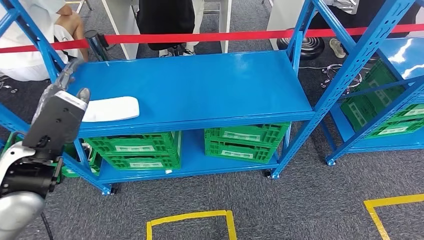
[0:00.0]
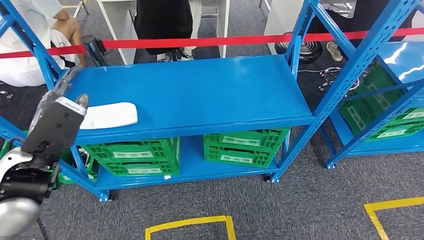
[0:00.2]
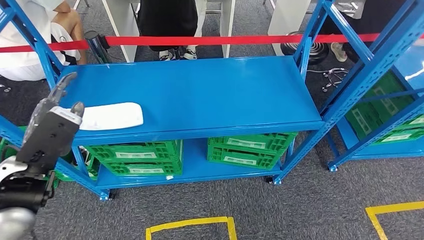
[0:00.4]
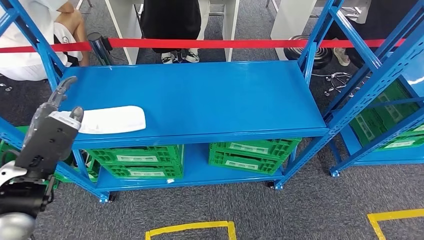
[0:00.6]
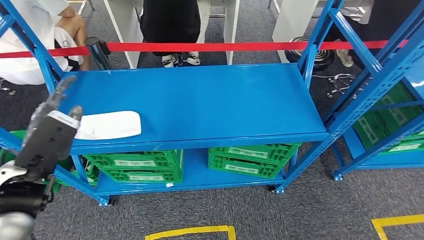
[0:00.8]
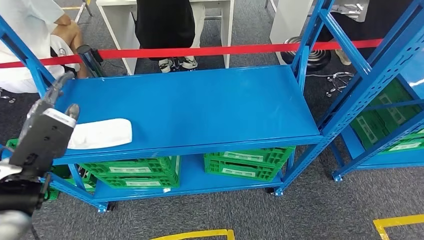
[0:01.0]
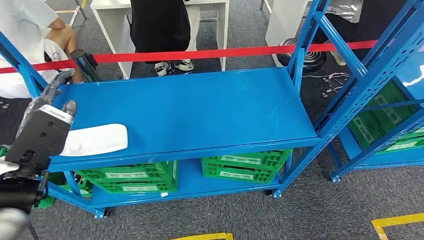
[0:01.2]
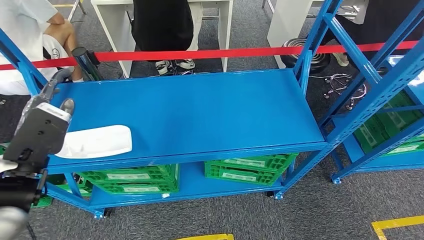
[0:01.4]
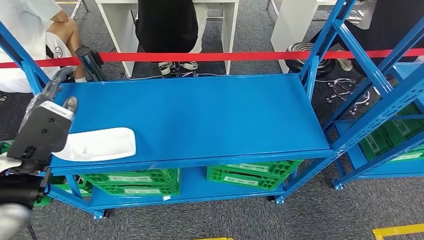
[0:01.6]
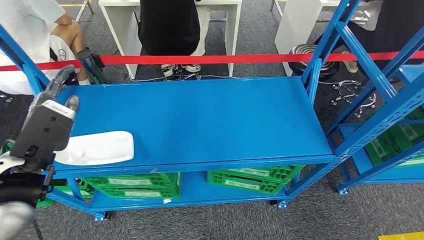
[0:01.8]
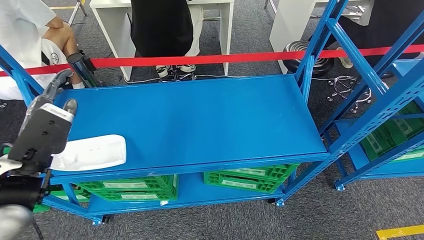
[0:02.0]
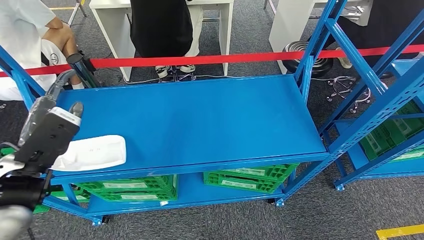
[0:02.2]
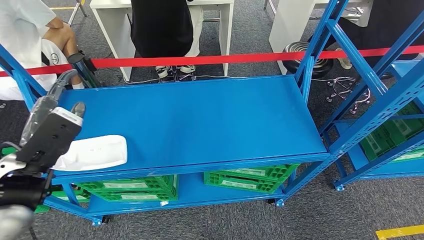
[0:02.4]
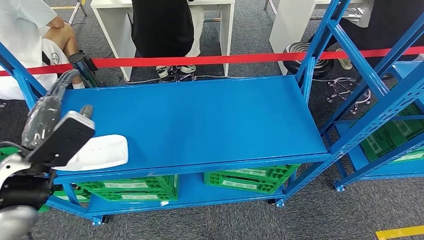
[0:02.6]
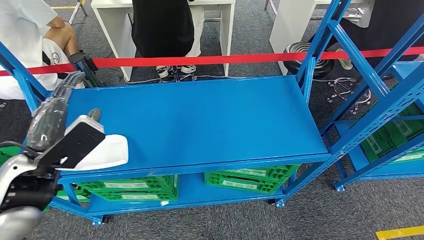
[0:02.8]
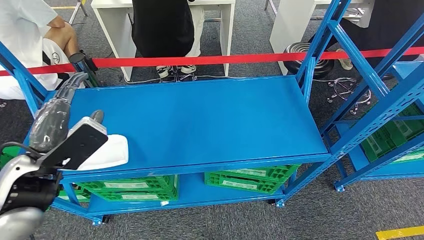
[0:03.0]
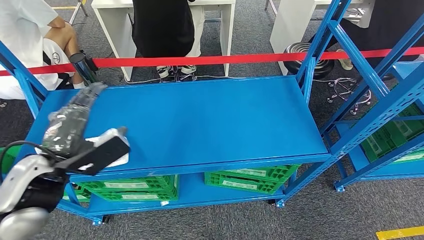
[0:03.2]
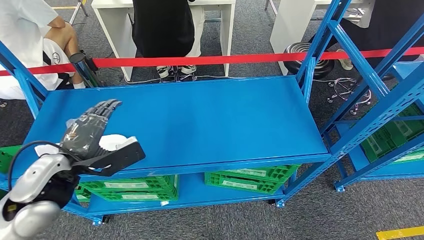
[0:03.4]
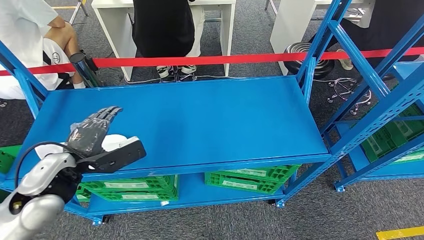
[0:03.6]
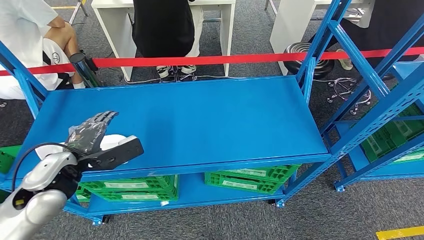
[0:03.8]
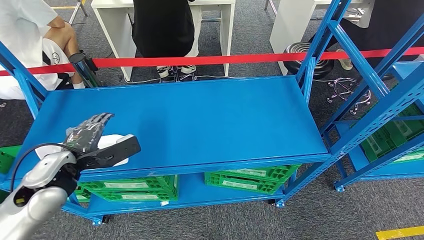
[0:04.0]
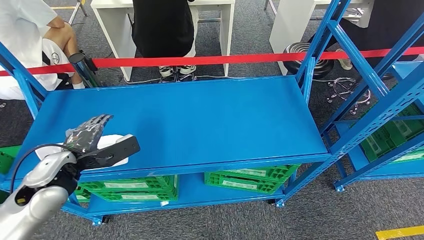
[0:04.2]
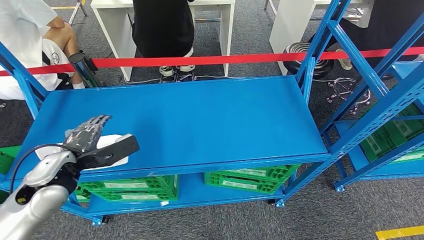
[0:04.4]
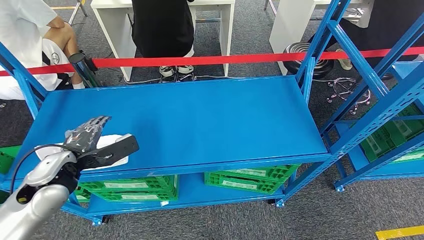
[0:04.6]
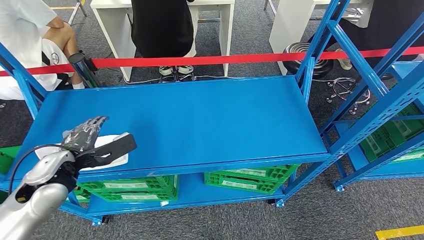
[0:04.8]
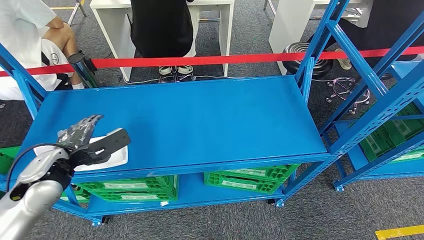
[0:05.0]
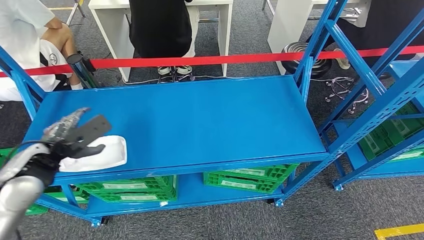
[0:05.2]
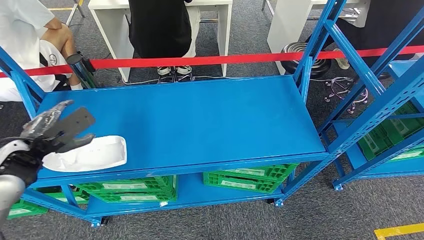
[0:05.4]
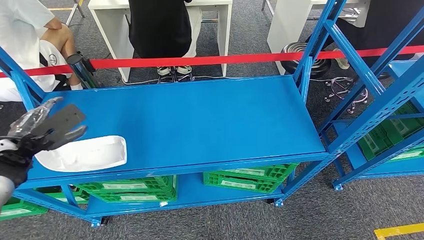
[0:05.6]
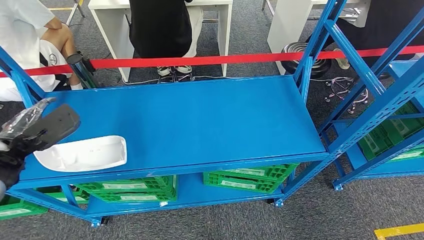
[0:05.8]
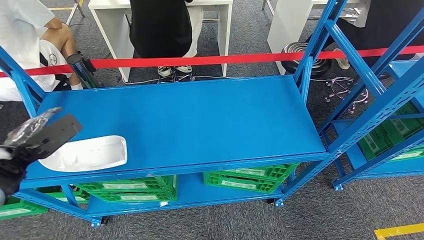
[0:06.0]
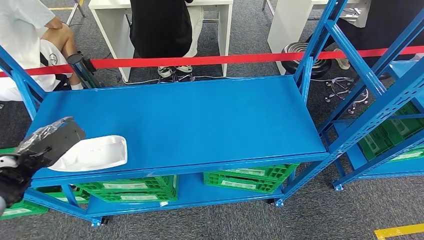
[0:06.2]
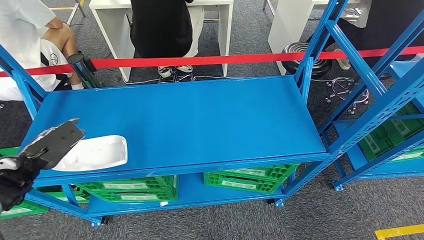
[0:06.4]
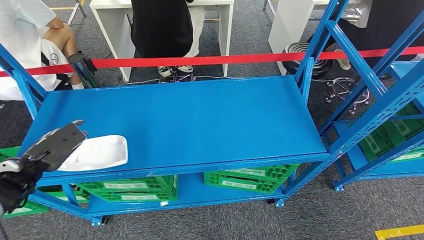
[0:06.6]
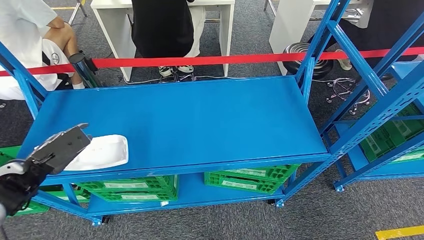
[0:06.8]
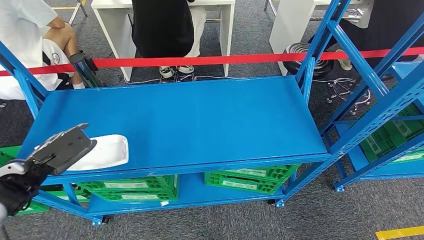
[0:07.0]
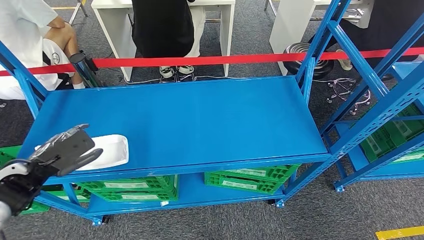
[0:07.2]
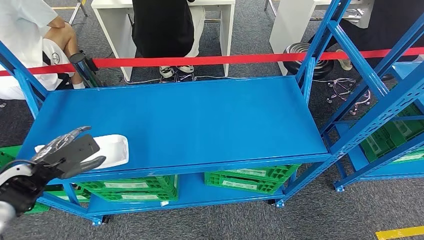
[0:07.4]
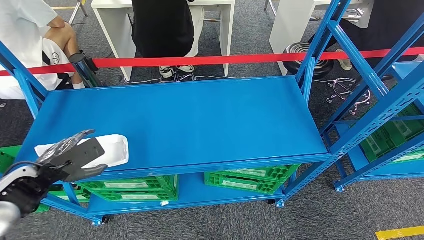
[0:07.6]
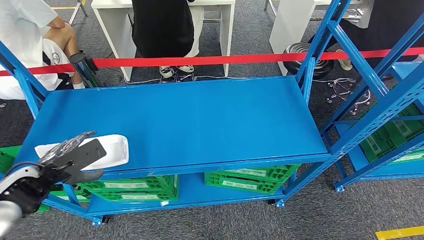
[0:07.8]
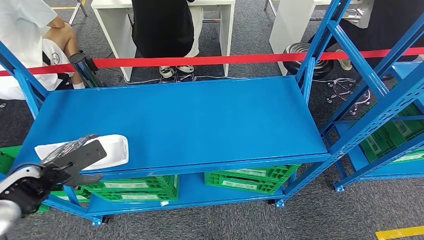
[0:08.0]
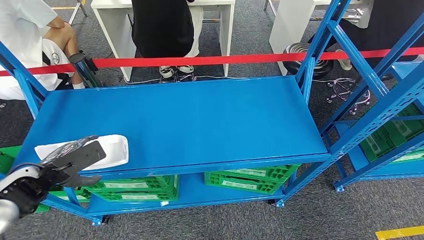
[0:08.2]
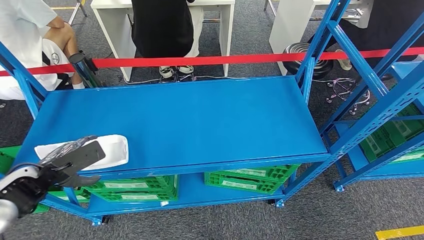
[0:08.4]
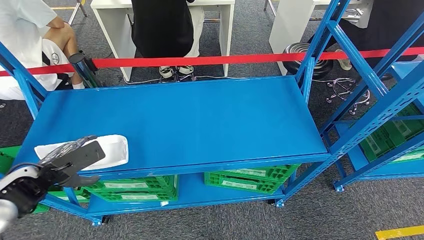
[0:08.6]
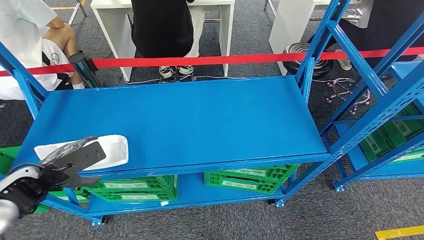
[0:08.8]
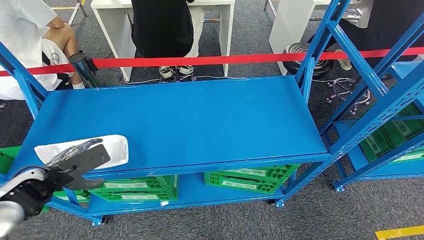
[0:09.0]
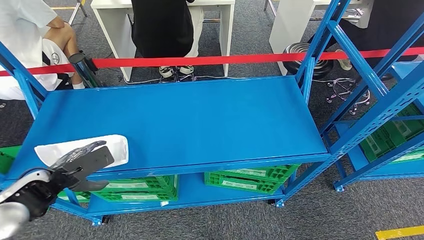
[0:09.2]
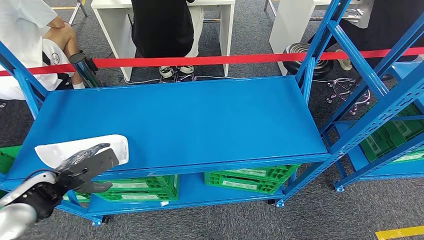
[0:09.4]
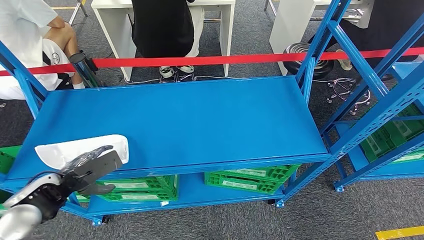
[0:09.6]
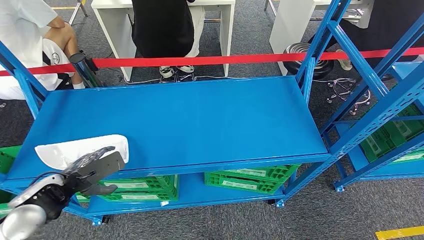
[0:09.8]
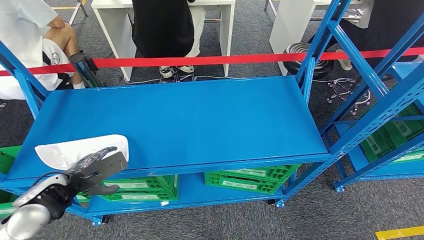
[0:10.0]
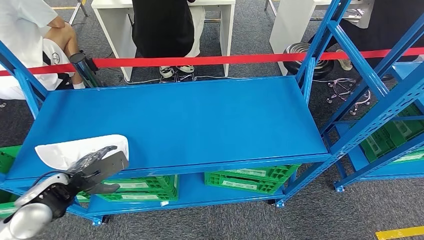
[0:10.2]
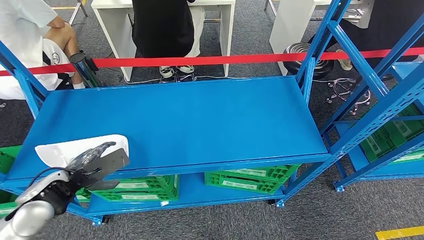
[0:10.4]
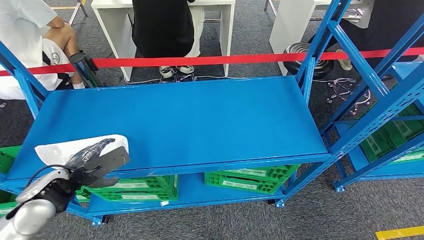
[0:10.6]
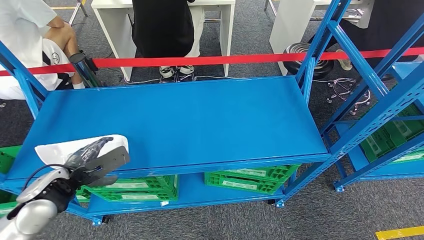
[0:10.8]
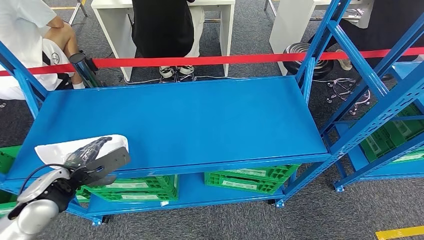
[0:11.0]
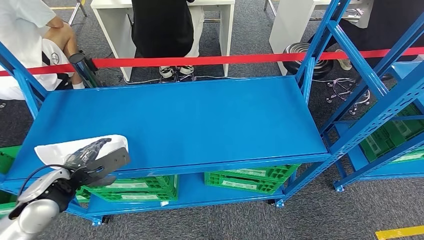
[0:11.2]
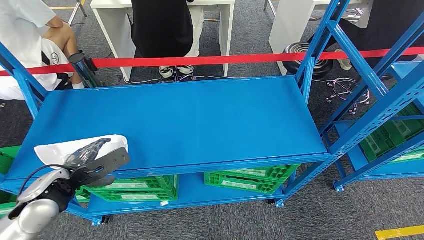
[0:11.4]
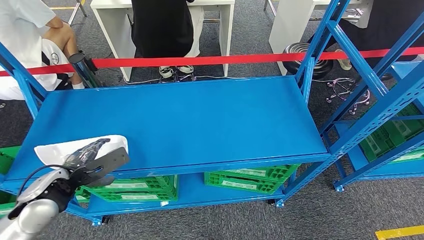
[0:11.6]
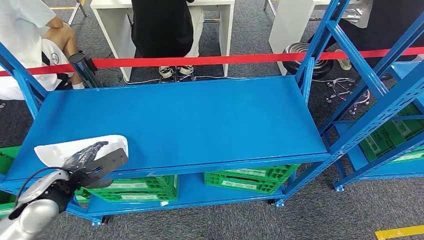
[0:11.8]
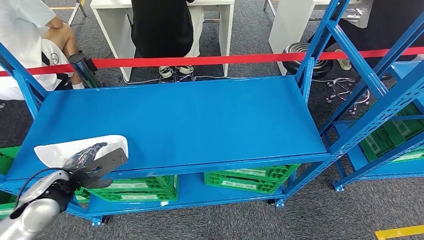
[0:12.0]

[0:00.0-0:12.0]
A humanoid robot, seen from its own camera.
0:03.0 to 0:04.4: The left hand shifts about 10 cm downward.
0:04.4 to 0:06.0: The left hand heads to the left, covering some 10 cm.
0:06.0 to 0:09.0: The hands make only small movements.
0:09.0 to 0:12.0: The hands move only a little.

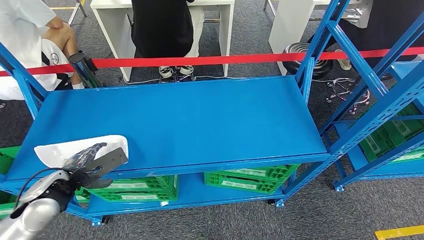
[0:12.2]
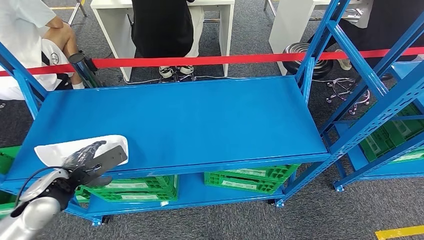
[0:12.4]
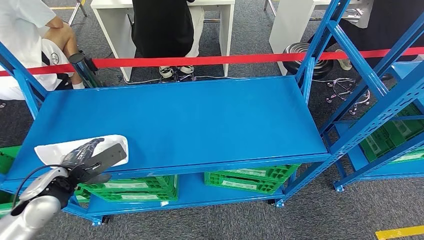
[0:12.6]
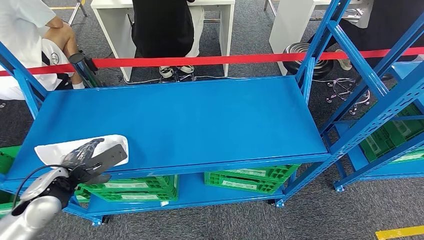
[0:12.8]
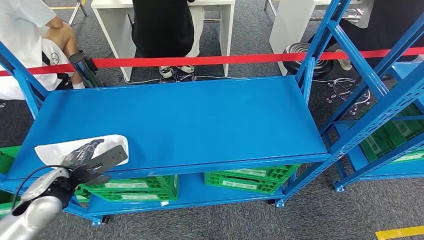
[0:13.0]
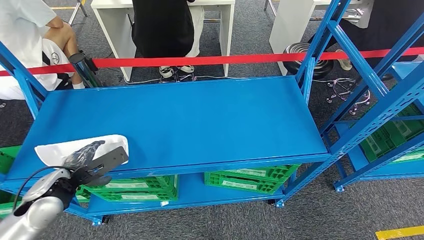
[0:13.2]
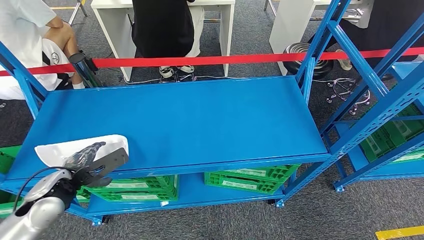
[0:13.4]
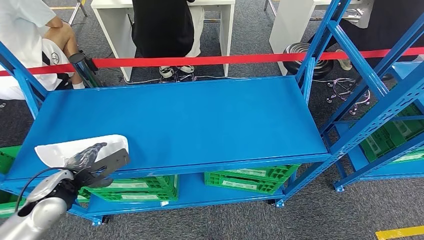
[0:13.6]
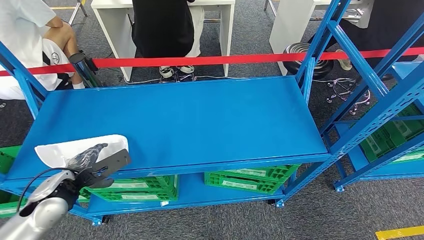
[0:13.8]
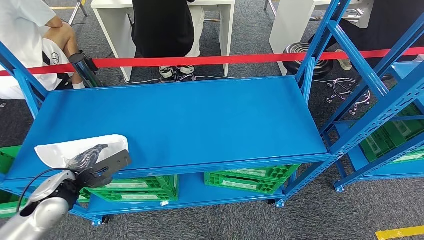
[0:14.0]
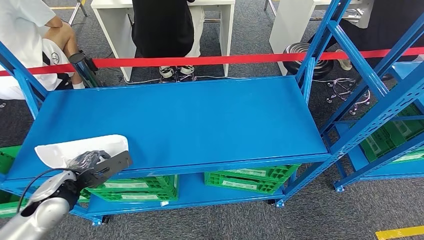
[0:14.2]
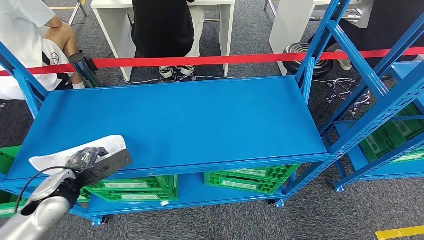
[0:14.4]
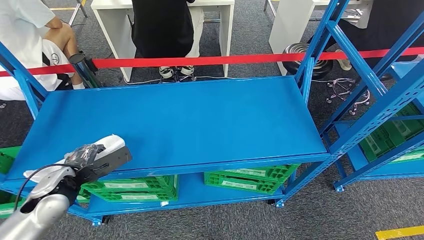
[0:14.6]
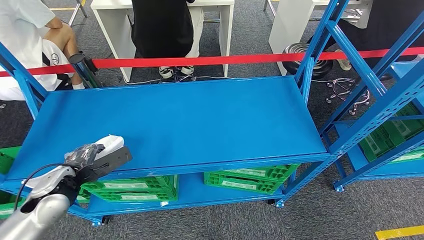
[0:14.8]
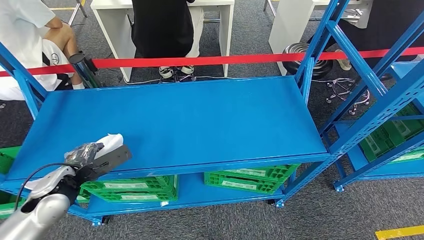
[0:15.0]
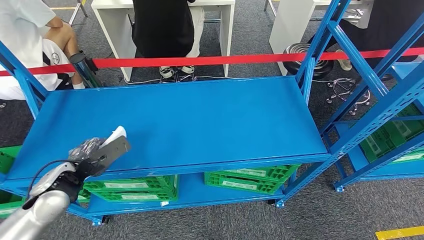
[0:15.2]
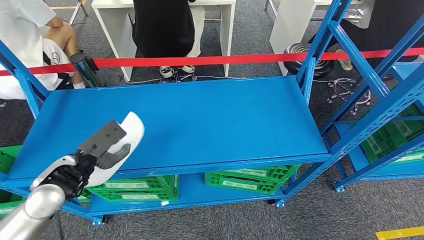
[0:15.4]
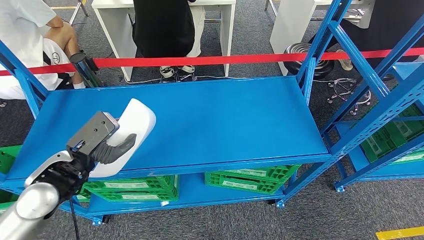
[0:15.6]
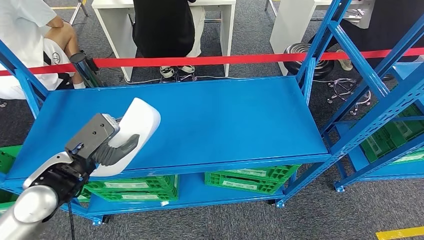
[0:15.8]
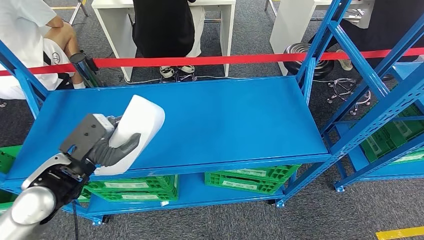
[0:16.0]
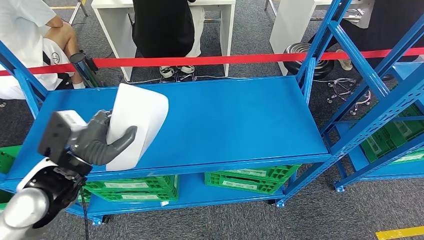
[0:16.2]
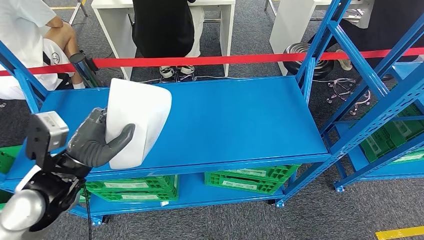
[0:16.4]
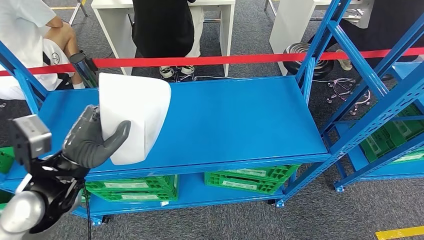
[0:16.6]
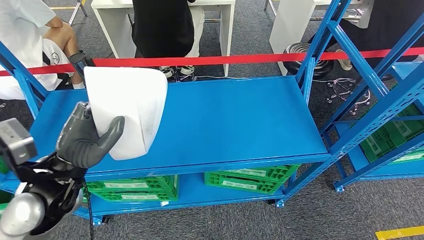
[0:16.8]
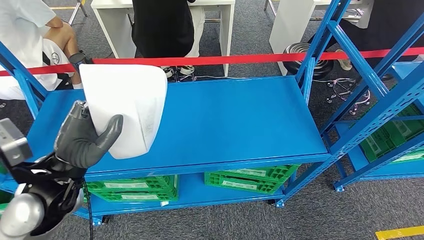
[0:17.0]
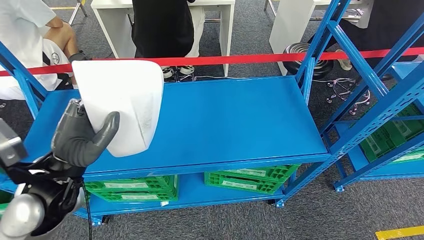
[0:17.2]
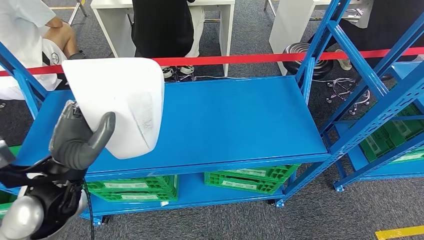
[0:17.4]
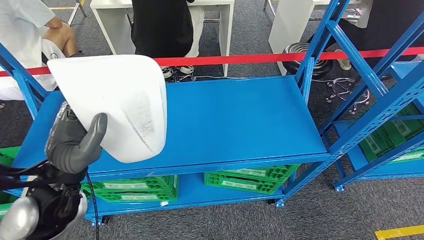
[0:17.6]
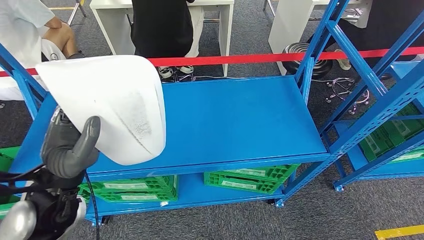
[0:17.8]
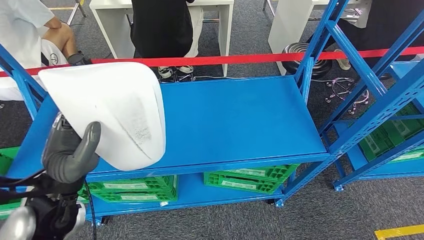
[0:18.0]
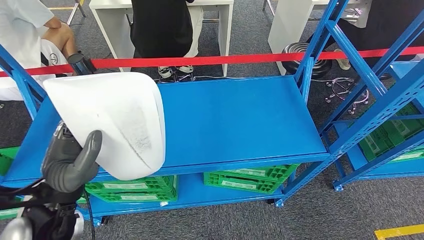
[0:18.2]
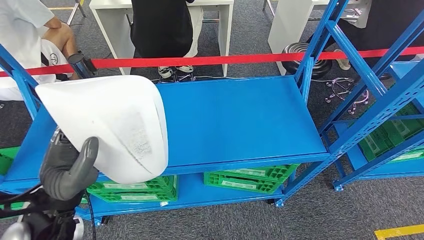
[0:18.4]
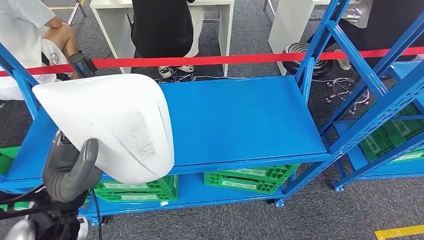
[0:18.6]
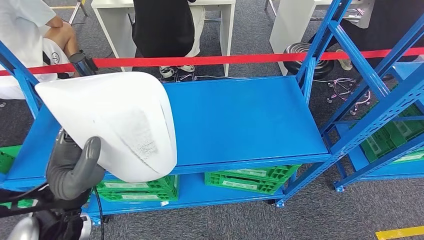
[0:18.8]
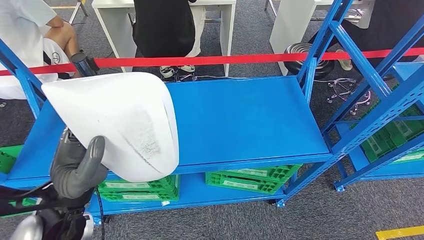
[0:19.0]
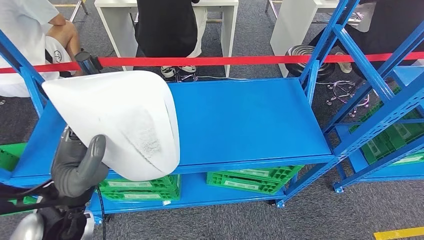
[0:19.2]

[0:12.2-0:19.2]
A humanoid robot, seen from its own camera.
Step, 0:12.2 to 0:16.8: Pick up the small component from the shelf.
0:12.2 to 0:13.6: The two hands keep their place.
0:13.6 to 0:15.0: The two hands keep their place.
0:15.0 to 0:16.4: The left hand travels upward and to the right by approximately 15 cm.
